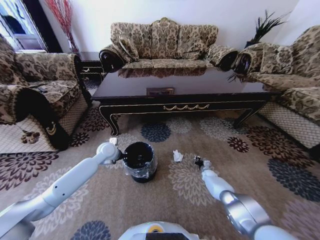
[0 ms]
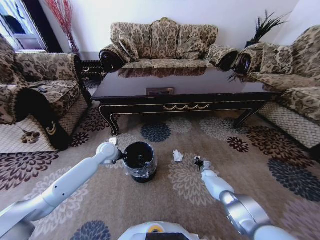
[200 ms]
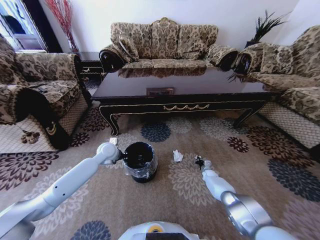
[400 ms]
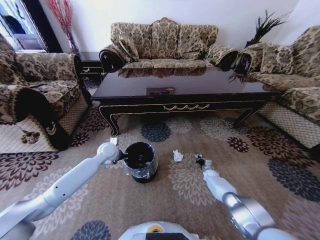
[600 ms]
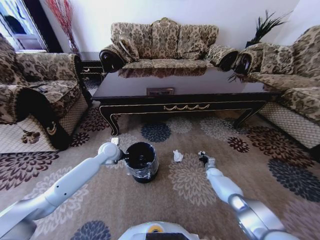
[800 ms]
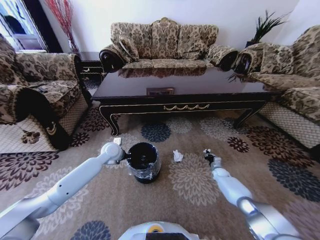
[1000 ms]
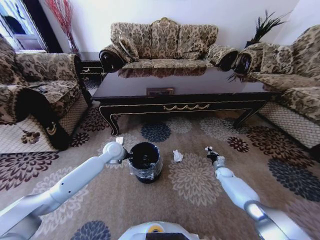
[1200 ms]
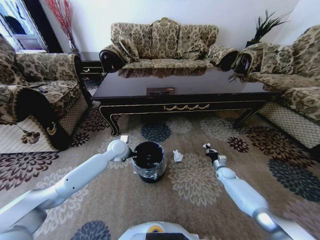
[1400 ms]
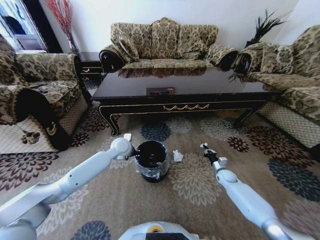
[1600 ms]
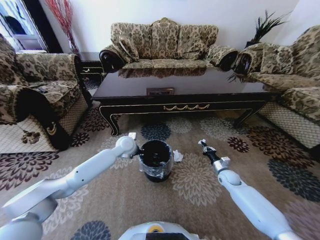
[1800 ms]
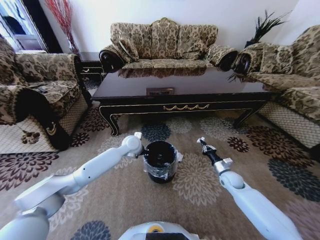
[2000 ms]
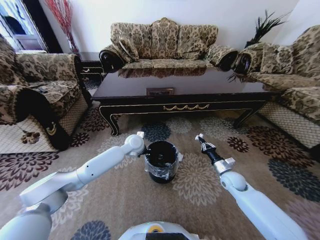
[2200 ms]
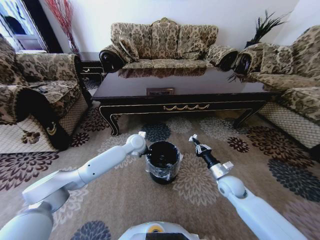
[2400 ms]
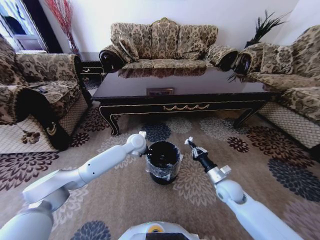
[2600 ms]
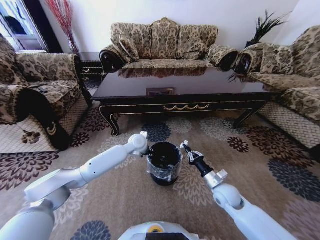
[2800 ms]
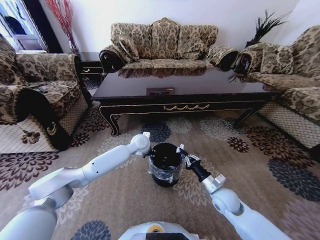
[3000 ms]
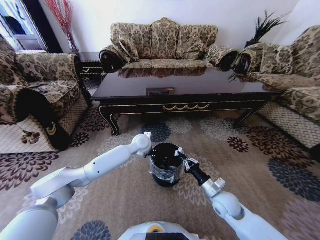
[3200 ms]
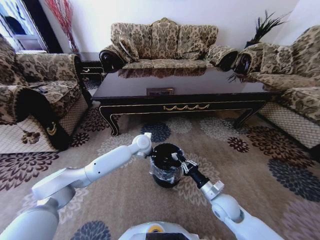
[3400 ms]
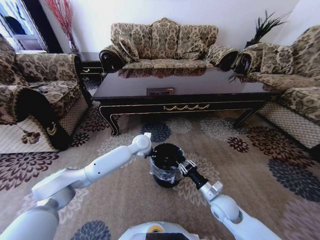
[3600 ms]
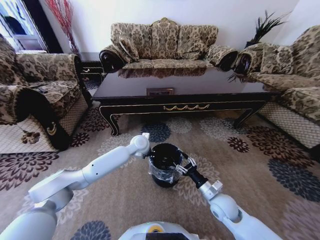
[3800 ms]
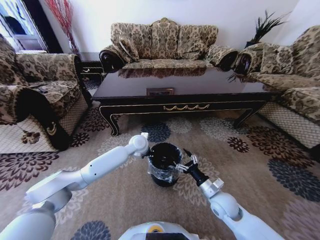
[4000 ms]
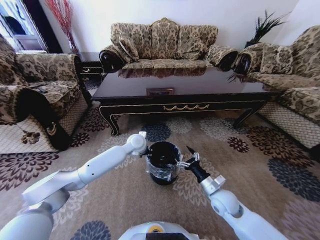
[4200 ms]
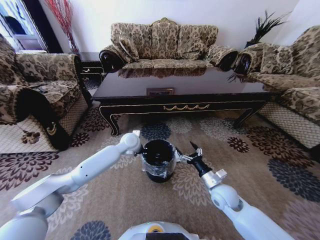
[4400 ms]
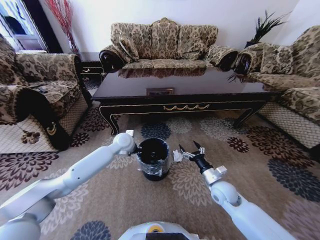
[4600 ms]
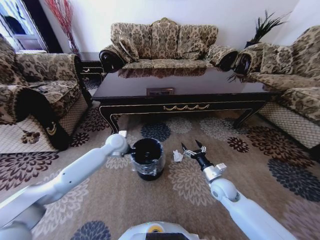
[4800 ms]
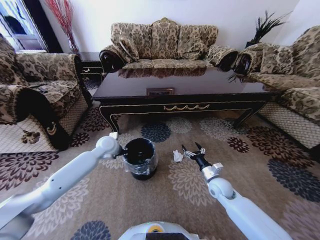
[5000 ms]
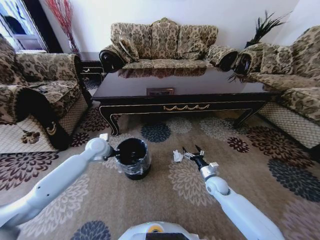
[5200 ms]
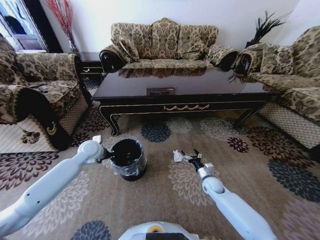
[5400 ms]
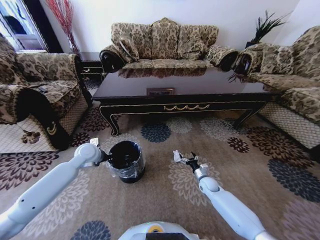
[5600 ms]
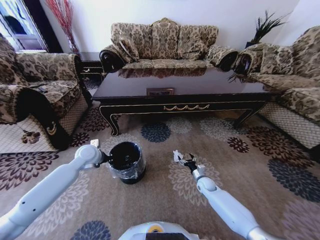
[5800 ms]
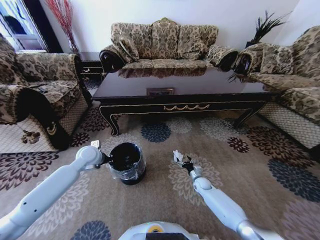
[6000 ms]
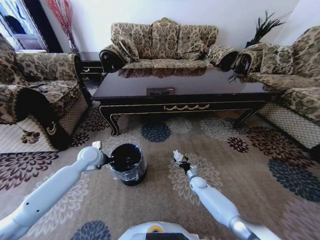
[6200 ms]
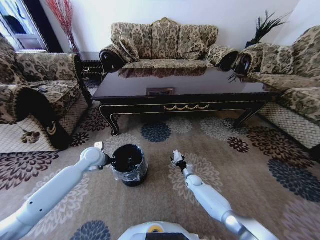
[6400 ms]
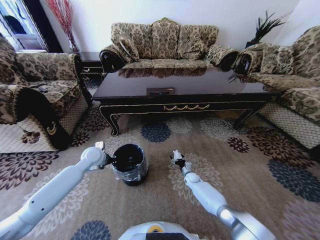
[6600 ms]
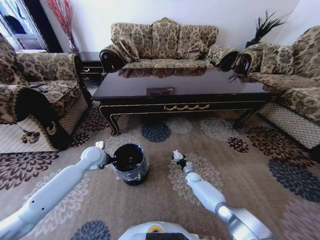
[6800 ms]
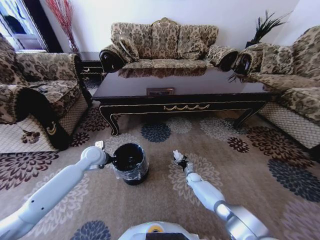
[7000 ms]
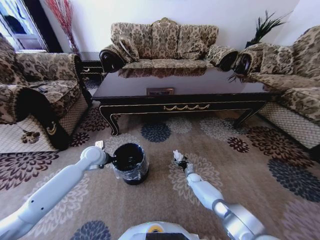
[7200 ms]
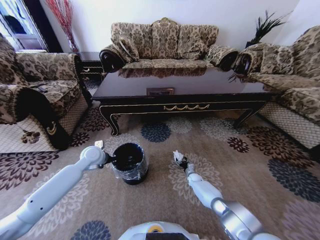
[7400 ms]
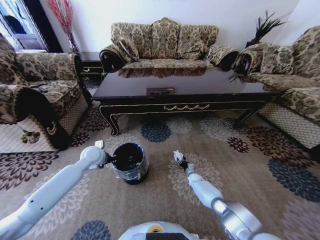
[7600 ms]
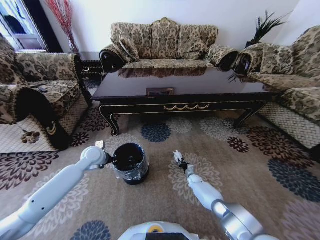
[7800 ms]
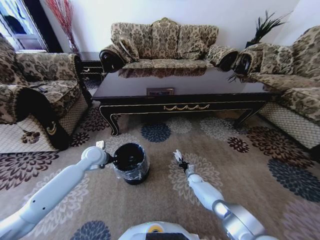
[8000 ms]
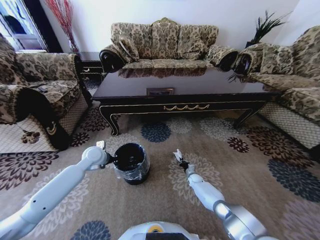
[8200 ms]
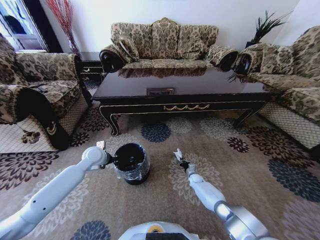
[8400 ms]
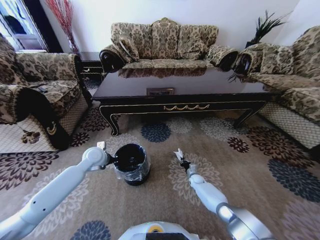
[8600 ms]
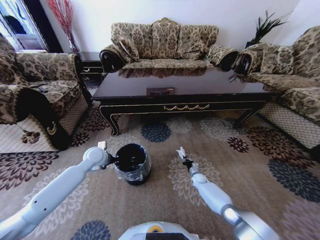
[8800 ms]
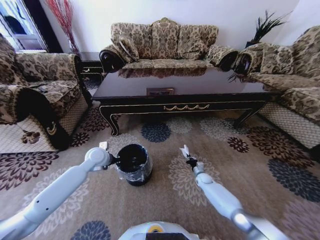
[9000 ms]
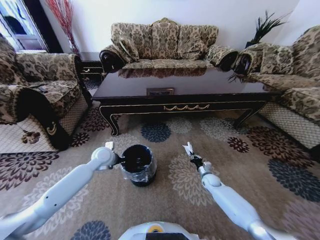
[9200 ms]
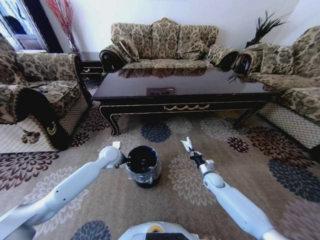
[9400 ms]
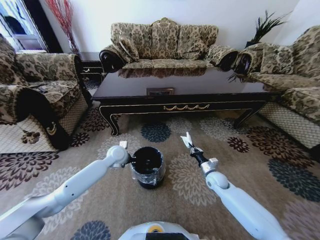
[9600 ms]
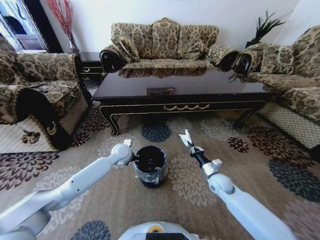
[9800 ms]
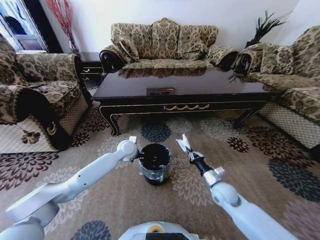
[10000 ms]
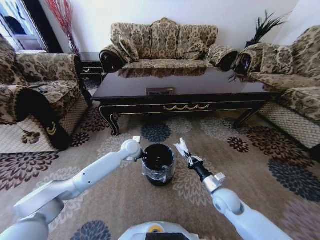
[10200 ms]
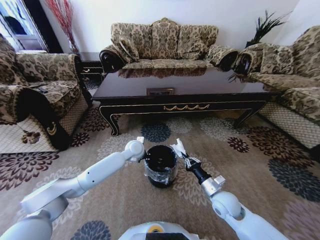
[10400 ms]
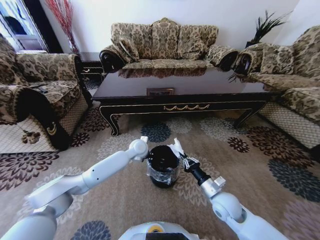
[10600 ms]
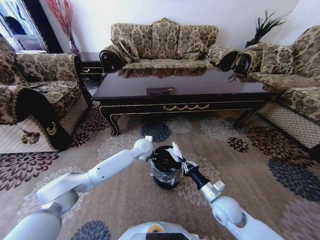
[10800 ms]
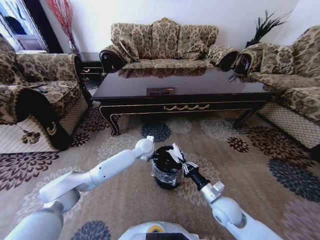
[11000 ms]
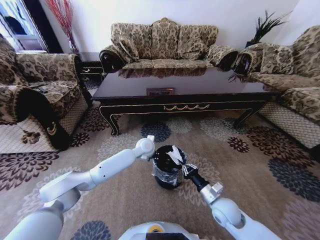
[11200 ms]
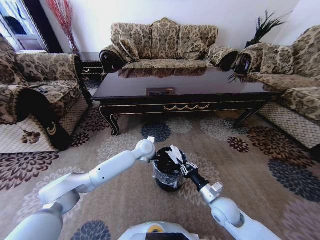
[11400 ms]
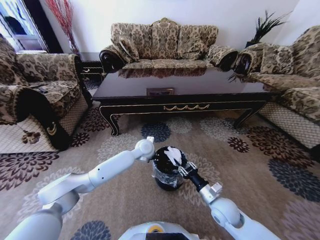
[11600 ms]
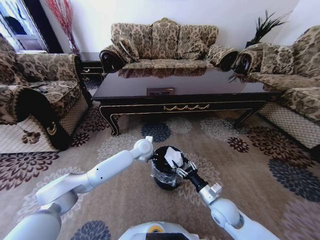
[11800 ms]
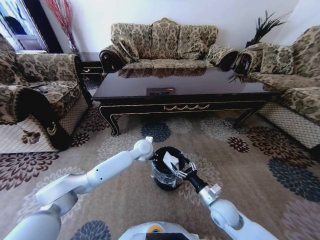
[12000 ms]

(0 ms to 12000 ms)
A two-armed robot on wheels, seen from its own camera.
Task of the whole recording: Move to the front of the table and pick up the trash from the floor, then place it into the trash bin.
0 ms - 1600 ms: The left gripper moves to the right, roughly 10 cm; the right gripper goes some 15 cm upward and backward.
1600 ms - 3000 ms: The left gripper is displaced to the right by approximately 10 cm, while the right gripper heads backward, to the left and upward, covering roughly 20 cm.
3000 ms - 4400 ms: The right gripper opens its fingers.
4400 ms - 6000 ms: The right gripper travels downward and forward by about 25 cm. Meanwhile the left gripper goes some 20 cm to the left.
6000 ms - 7600 ms: The right gripper travels downward and forward by roughly 10 cm, and closes.
7600 ms - 9000 ms: The right gripper goes about 5 cm upward, and closes its fingers.
9000 ms - 10400 ms: The left gripper shifts some 15 cm to the right, while the right gripper is displaced upward and backward by about 25 cm.
10400 ms - 12000 ms: The right gripper opens its fingers.

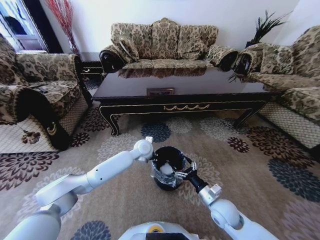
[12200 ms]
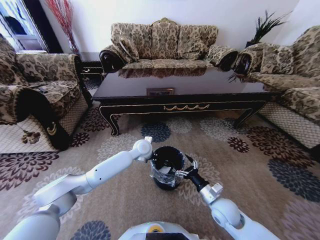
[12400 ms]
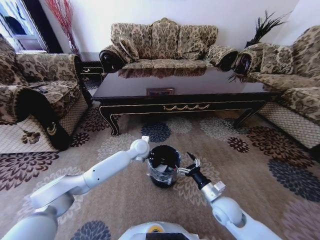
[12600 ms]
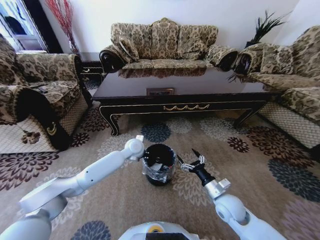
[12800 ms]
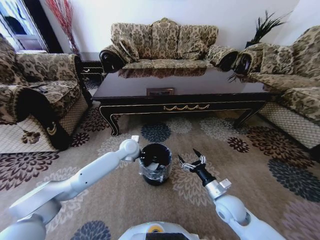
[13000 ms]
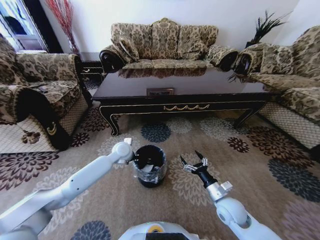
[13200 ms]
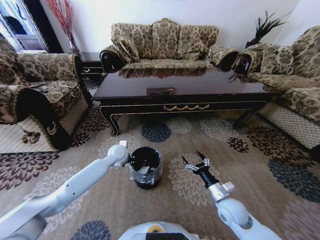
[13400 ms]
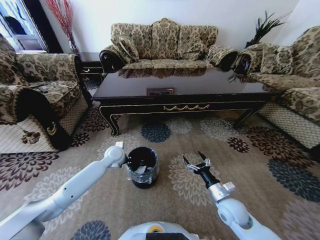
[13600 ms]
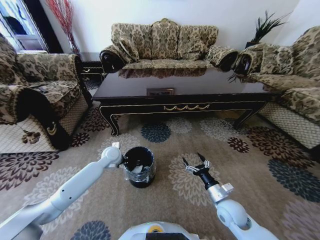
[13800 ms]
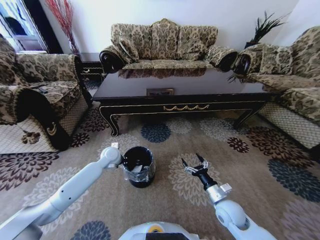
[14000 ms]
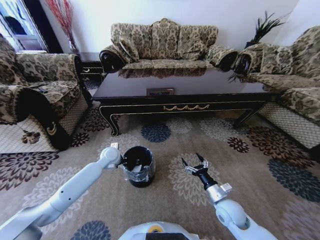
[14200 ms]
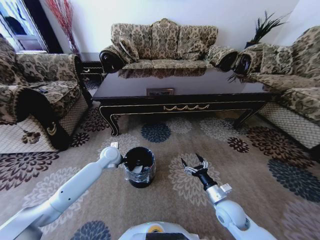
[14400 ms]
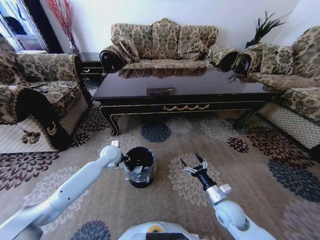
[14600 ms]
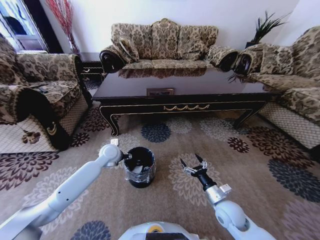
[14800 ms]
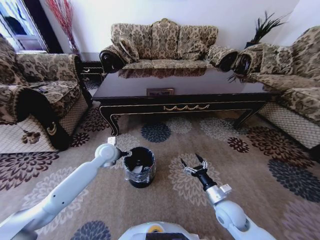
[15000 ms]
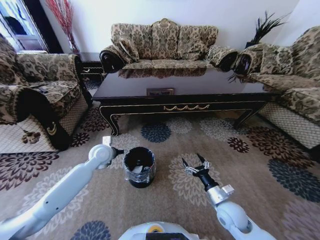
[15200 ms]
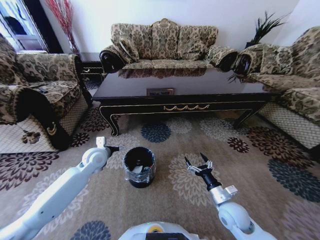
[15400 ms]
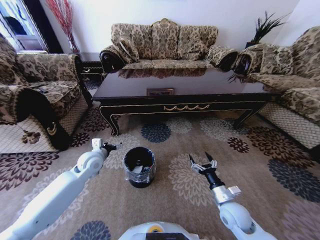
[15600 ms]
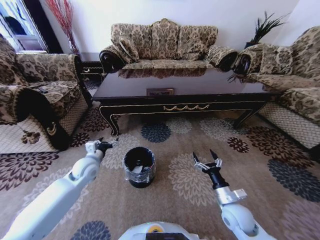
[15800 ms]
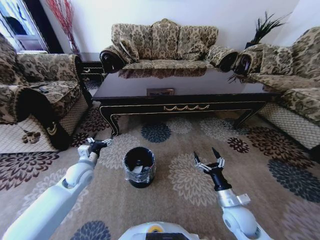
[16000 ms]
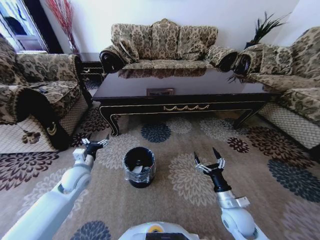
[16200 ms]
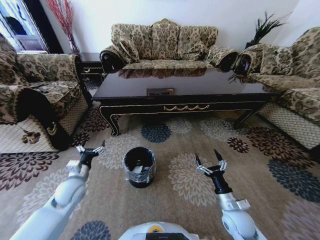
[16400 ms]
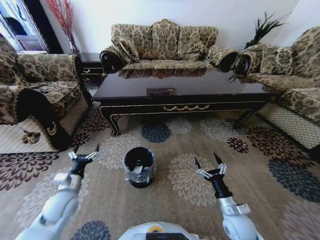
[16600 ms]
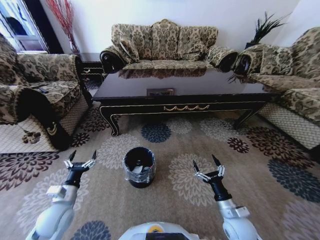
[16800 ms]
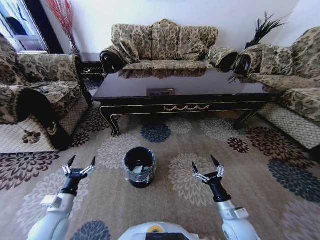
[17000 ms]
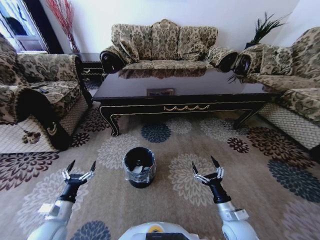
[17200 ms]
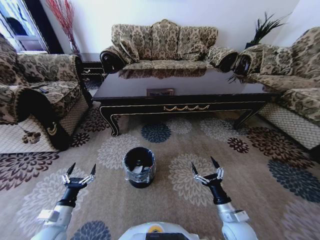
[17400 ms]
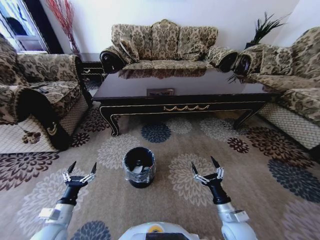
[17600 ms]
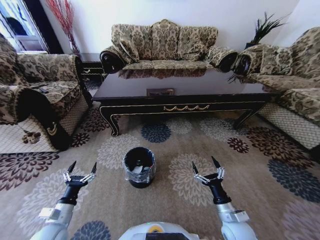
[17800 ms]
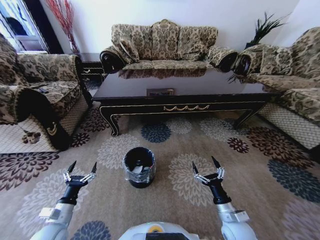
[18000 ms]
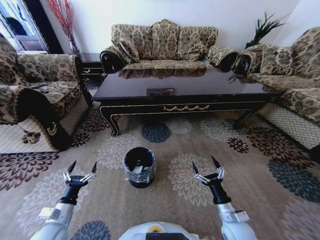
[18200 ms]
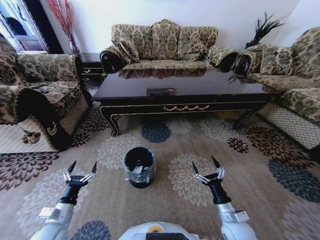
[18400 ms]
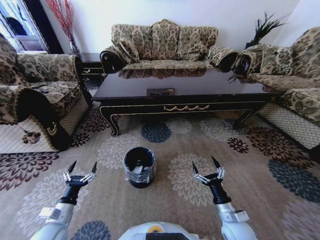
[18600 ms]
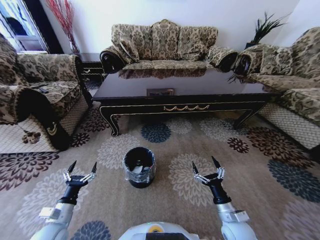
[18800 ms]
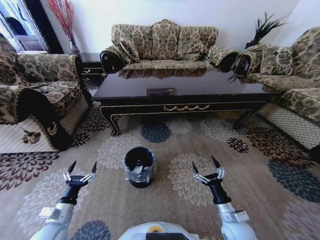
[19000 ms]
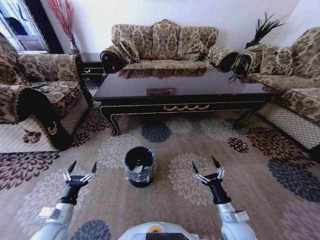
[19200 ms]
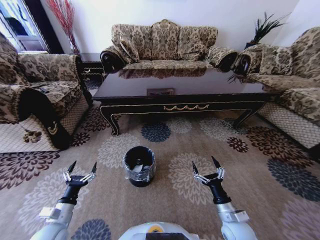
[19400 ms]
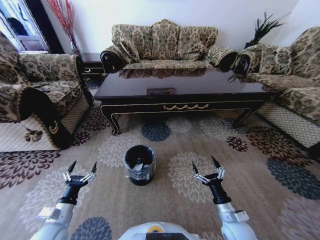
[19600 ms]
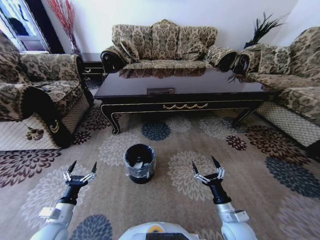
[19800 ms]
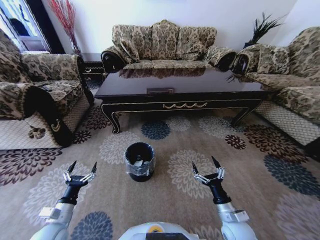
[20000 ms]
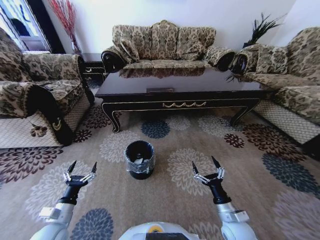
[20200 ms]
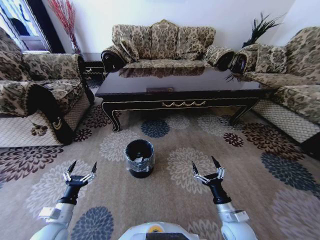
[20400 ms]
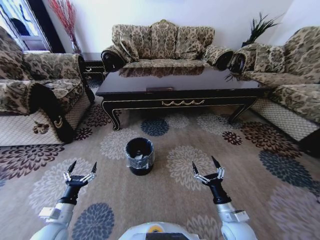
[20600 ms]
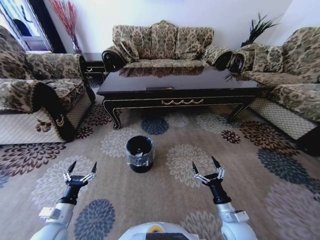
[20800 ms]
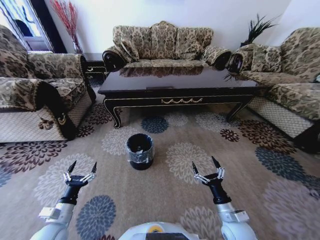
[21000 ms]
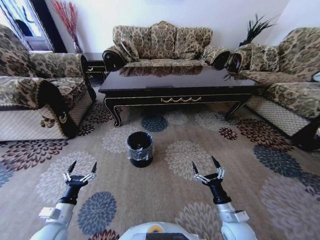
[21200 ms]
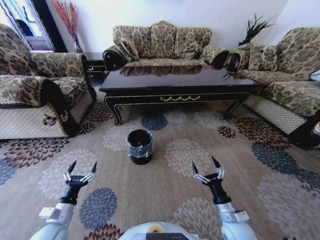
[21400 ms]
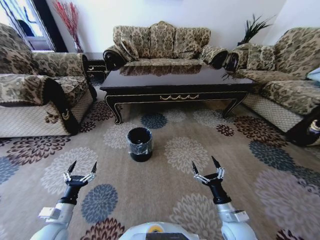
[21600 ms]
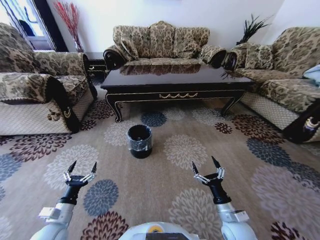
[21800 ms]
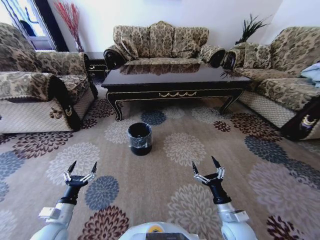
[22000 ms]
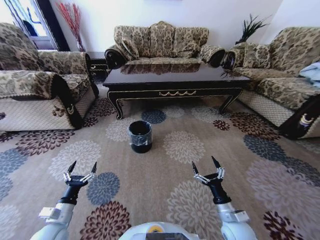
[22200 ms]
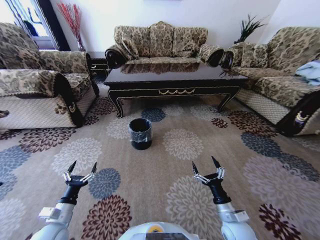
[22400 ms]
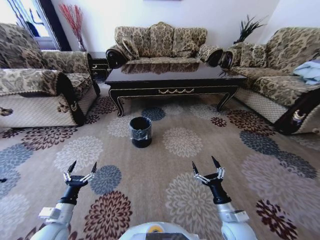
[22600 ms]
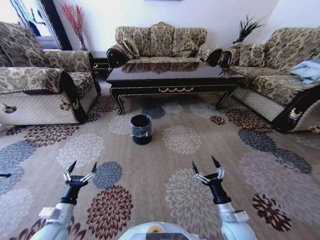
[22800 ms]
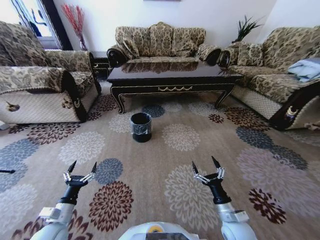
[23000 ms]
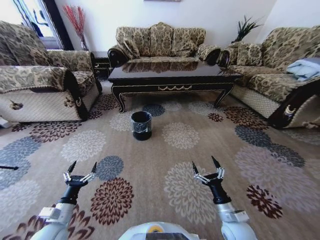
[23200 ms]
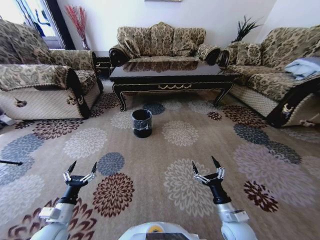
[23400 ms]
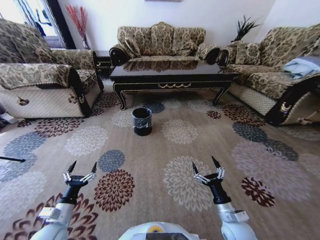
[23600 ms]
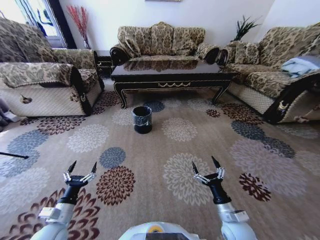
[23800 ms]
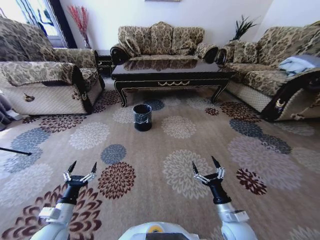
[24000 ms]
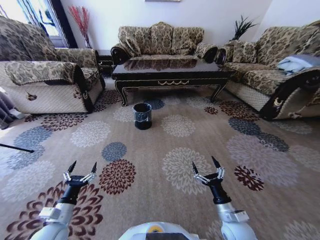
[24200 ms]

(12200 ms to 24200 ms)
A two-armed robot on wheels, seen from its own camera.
Task of the whole recording: Move to the front of the table and pick up the trash from the floor, then place it into the trash bin.
12200 ms - 13800 ms: The left gripper heads to the left, covering roughly 15 cm.
13800 ms - 15200 ms: The left gripper changes place by approximately 5 cm, and opens up.
15200 ms - 16600 ms: The left gripper shifts roughly 20 cm backward, to the left and downward.
16600 ms - 18200 ms: The left gripper goes roughly 10 cm backward.
18200 ms - 19800 ms: Both grippers stay put.
